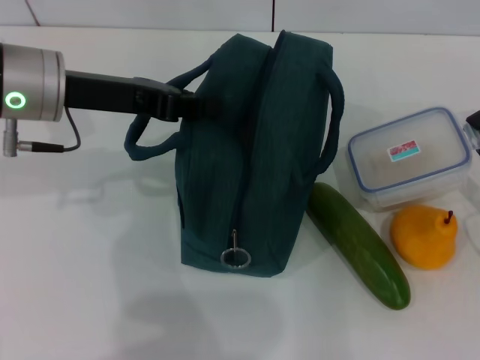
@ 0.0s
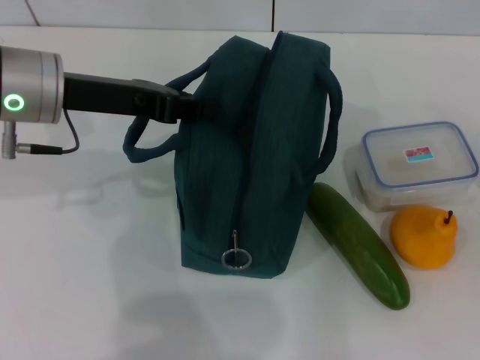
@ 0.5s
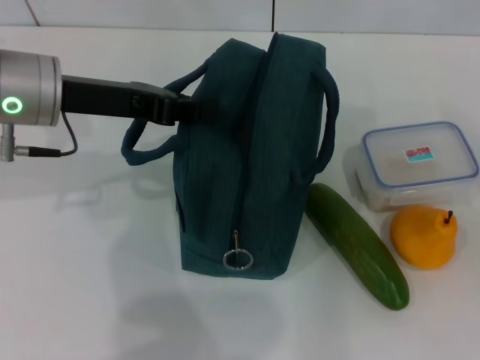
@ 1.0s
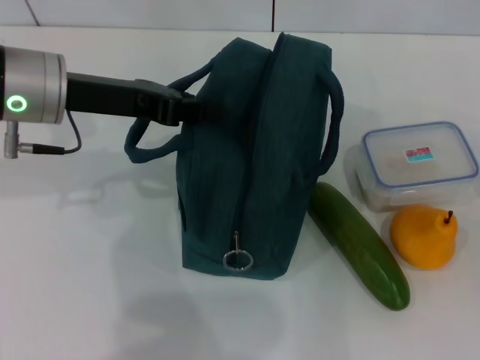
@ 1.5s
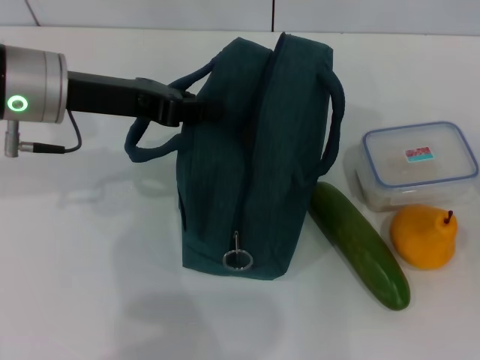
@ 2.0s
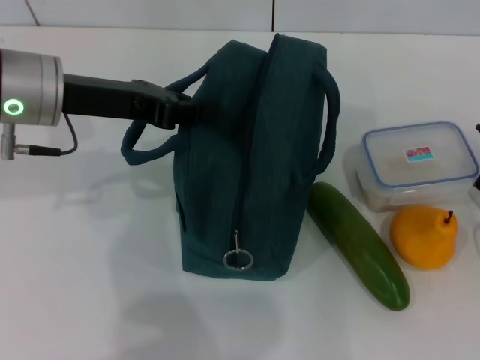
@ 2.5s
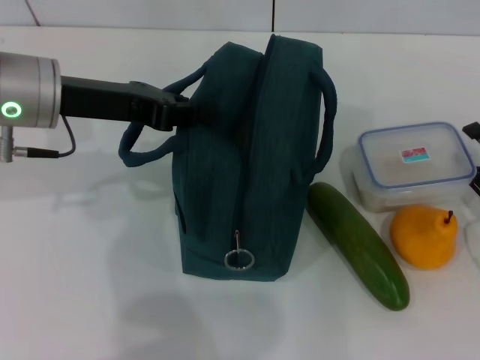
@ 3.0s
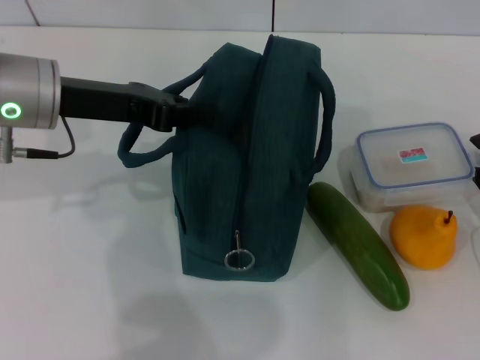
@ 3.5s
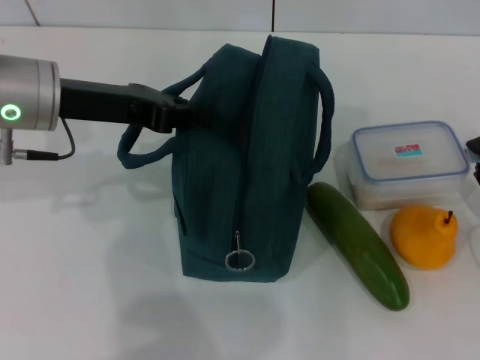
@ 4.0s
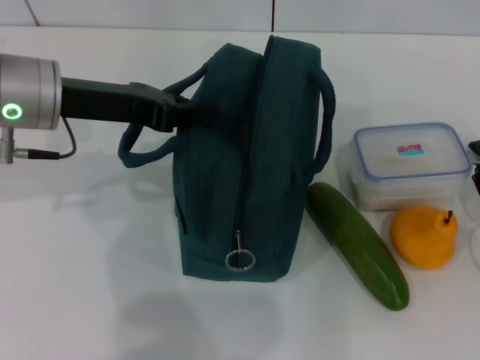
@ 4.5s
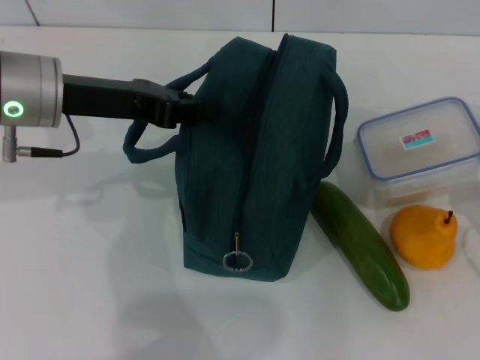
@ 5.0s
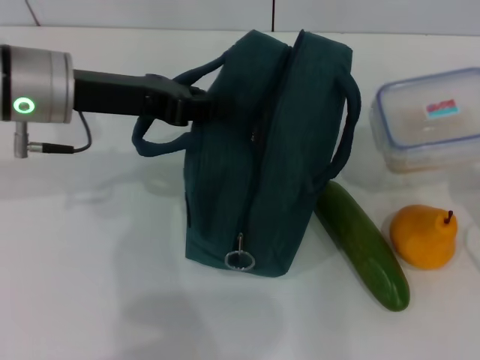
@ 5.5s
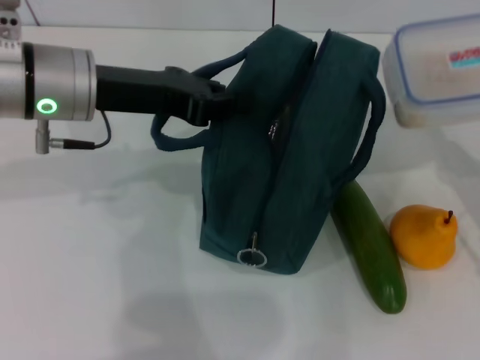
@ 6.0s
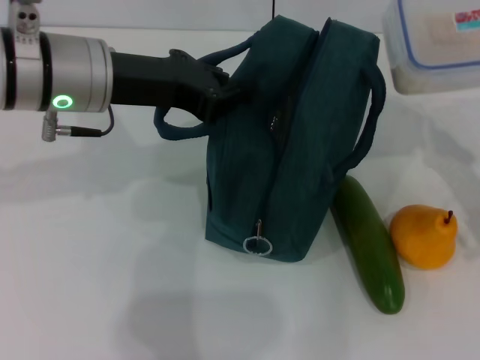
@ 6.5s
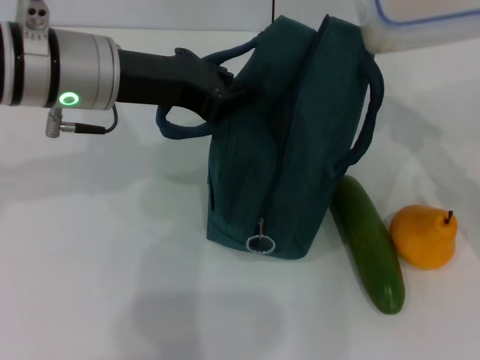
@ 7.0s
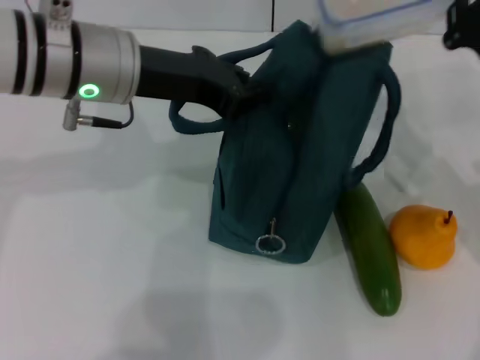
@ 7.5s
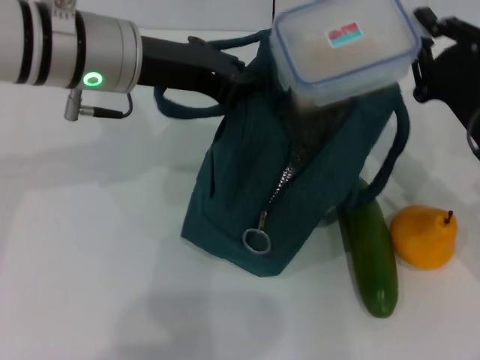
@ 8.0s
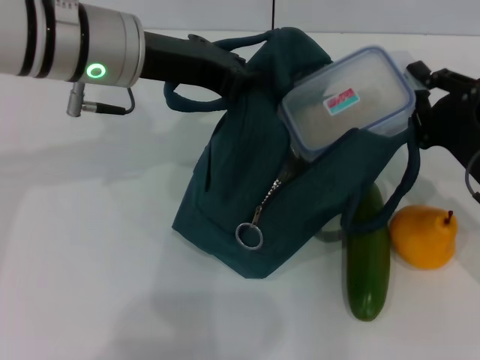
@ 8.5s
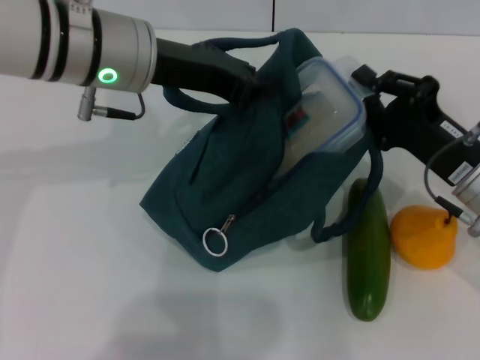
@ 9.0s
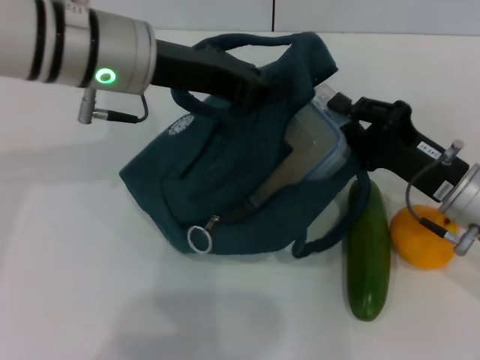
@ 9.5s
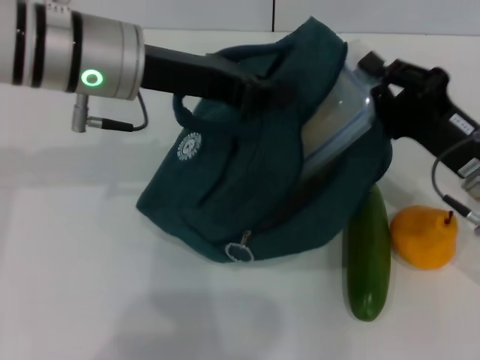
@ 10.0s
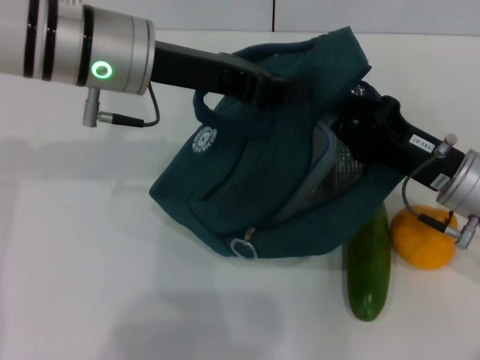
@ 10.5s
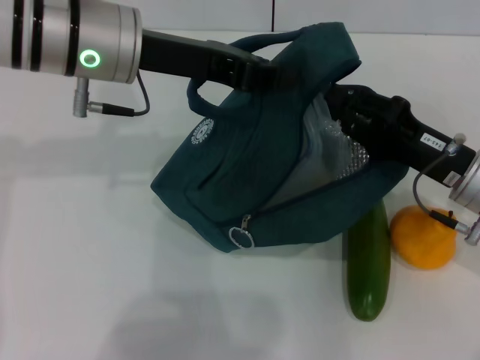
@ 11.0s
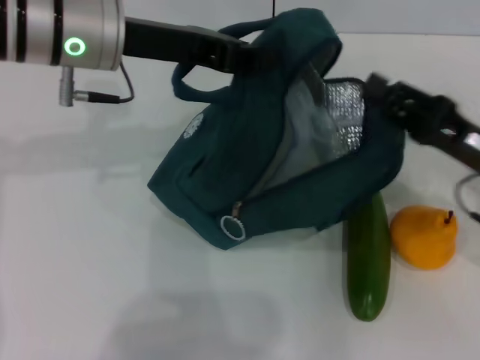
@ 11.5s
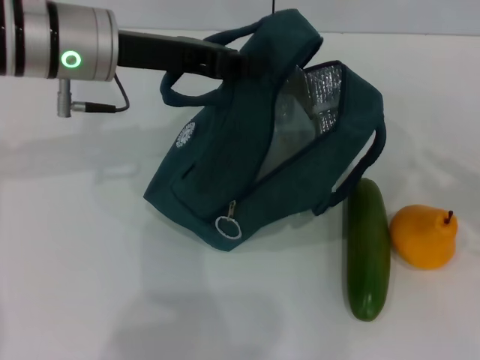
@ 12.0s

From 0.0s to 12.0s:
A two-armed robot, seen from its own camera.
Step, from 0.0s to 4.0s: Pick up the lunch box with your right hand.
Step, from 4.5s to 11.0s: Place the lunch box into the lunch bag with your right hand.
From 0.0s to 2.0s: The right gripper ends up approximately 5 cm from where it was, and opens.
From 2.0s to 4.0s: The right gripper closes.
From 4.0s to 6.0s: The right gripper is displaced upward by approximately 5 cm.
From 6.0s to 8.0s: The right gripper moves to the left and forward, some 10 cm.
From 10.0s to 12.0s: The right gripper is displaced to the right and backward by approximately 15 cm.

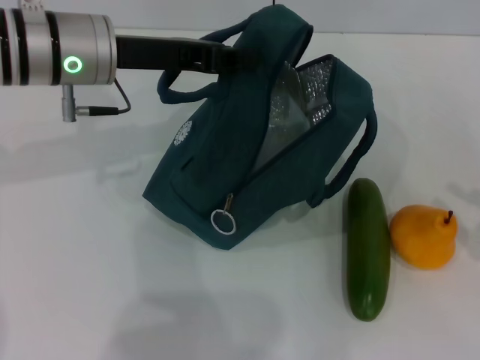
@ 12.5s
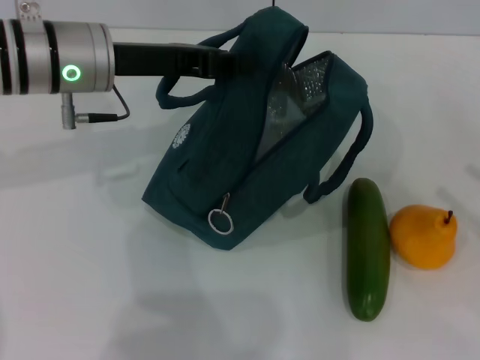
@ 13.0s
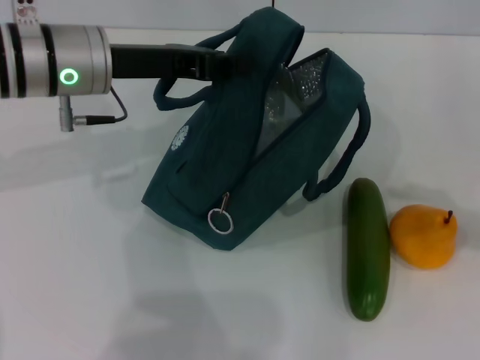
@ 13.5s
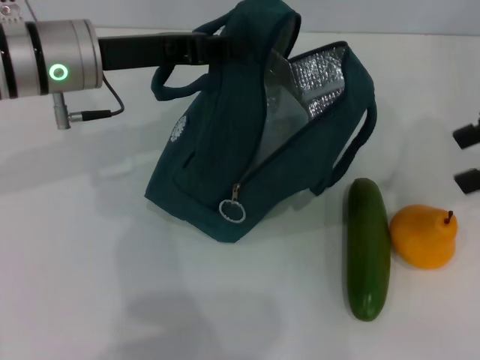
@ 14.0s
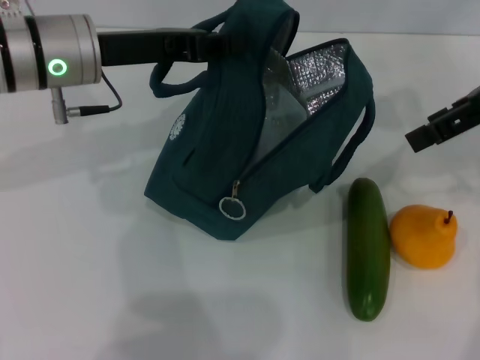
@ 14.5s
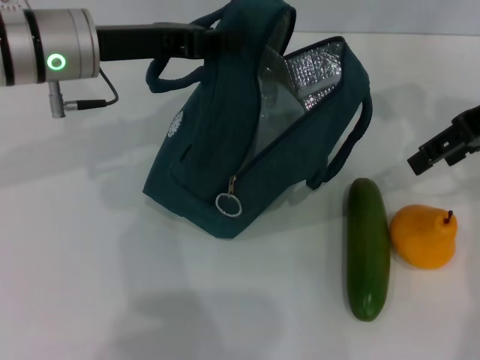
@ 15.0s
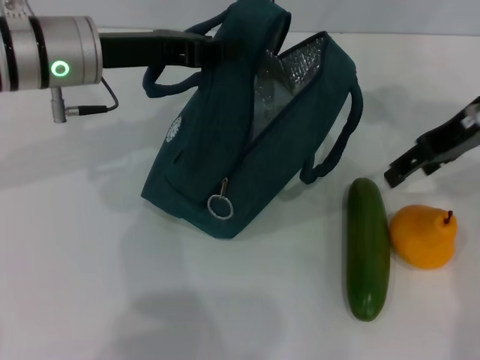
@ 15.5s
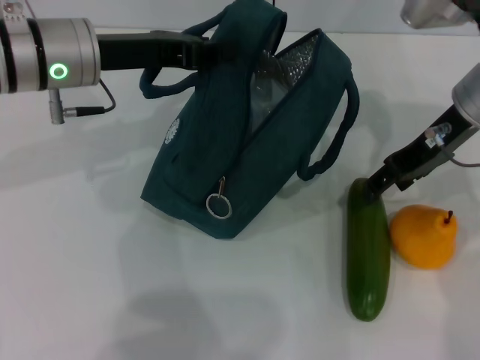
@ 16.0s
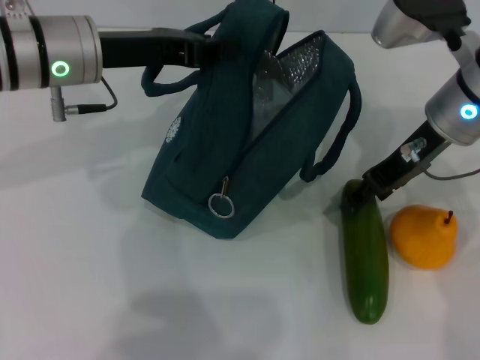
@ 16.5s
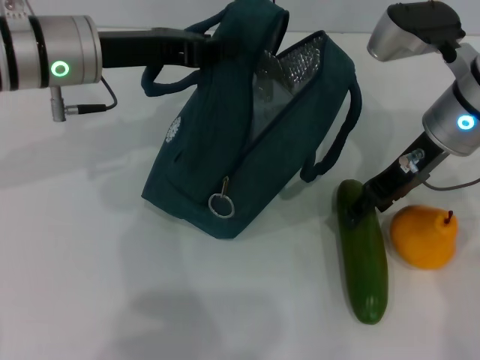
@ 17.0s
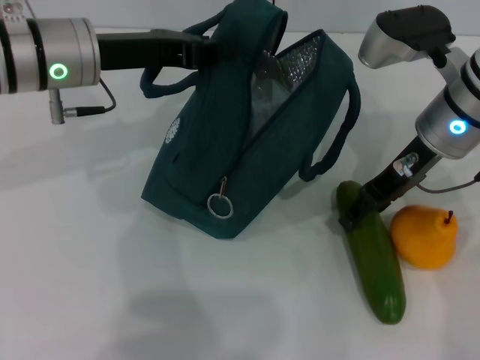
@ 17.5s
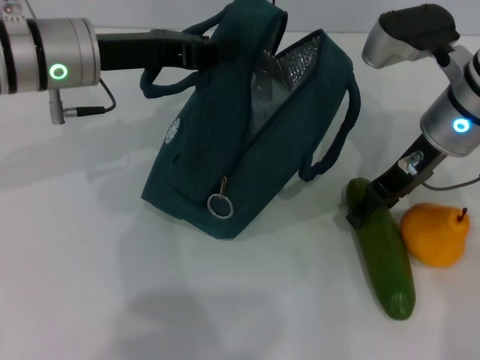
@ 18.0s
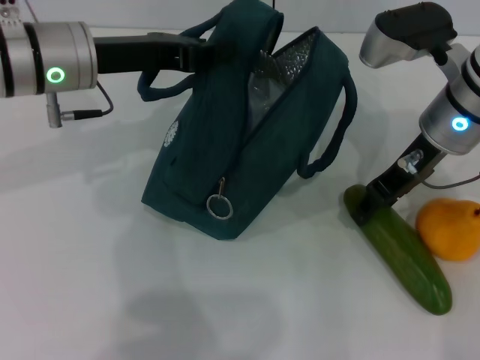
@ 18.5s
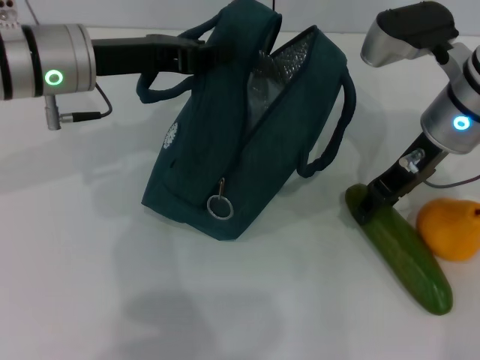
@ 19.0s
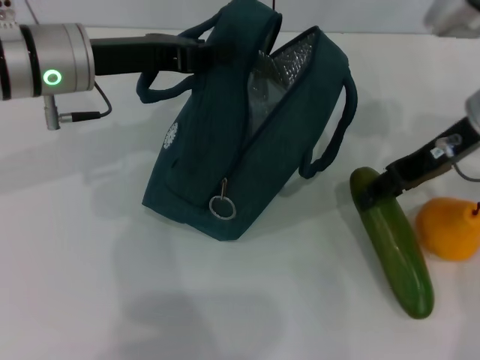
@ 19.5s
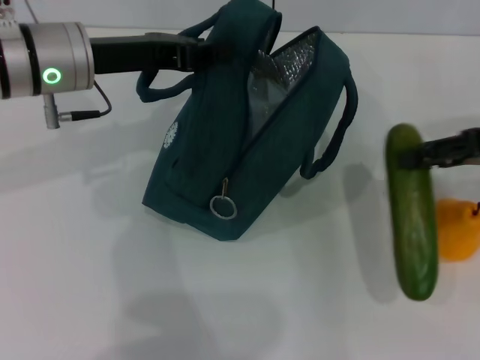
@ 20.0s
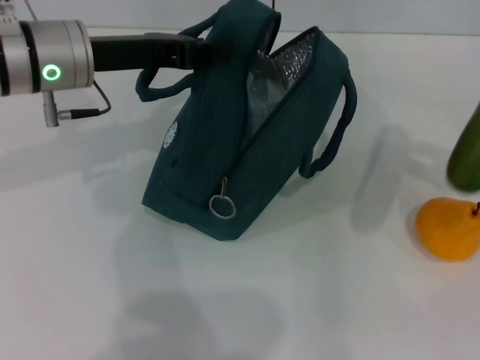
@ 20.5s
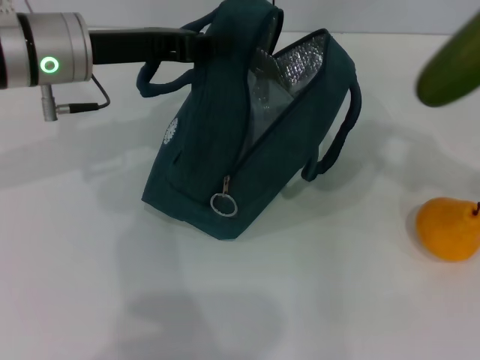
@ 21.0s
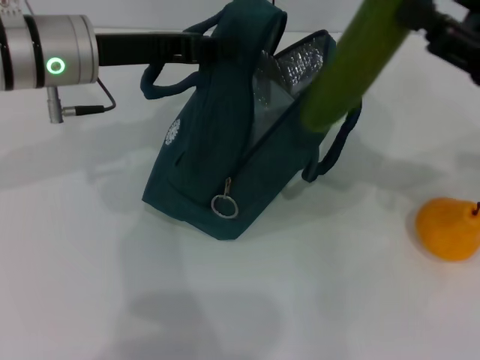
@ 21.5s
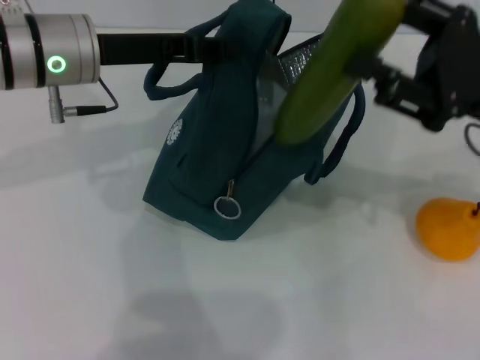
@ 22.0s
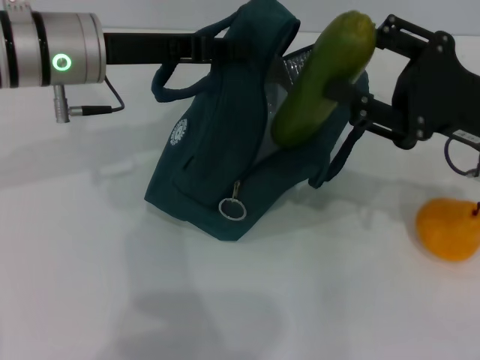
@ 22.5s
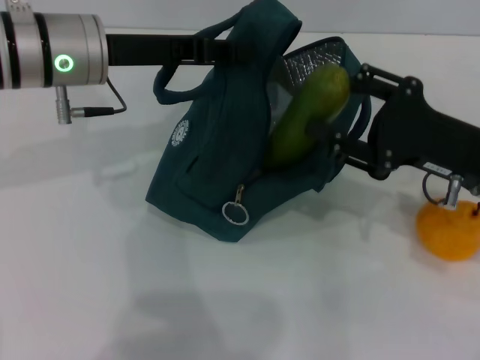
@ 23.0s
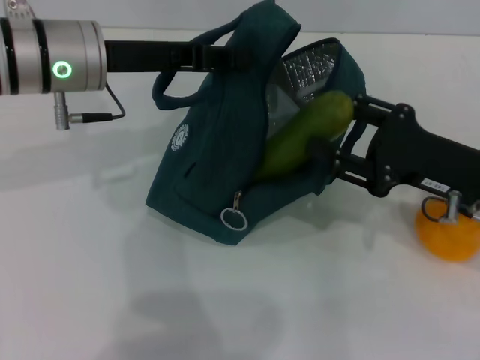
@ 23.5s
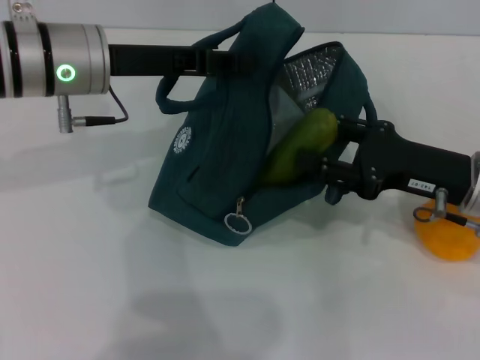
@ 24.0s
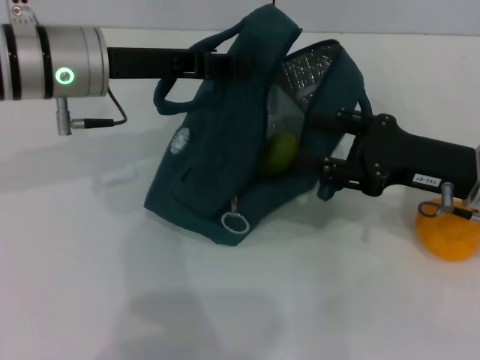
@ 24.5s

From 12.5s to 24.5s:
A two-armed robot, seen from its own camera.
Step, from 12.5s to 18.0s: Pick up the cucumber with your right hand.
From 12.5s to 14.5s: The right gripper heads upward, forward and to the left, covering some 25 cm, and opens its fingers.
From 14.5s to 16.5s: The right gripper shifts roughly 15 cm downward and to the left.
From 18.5s to 20.5s: The right gripper shifts about 25 cm to the right and backward.
From 20.5s to 22.5s: The right gripper travels to the left by some 15 cm.

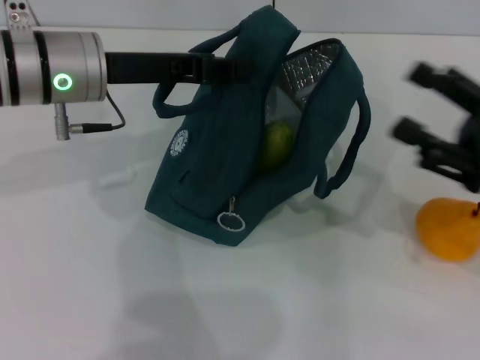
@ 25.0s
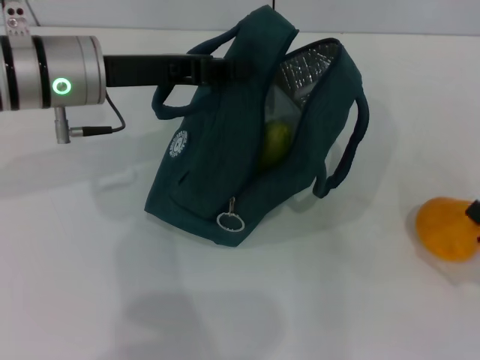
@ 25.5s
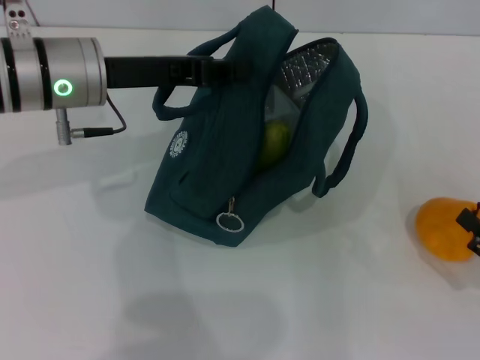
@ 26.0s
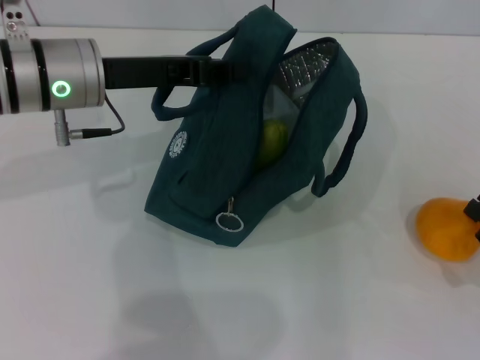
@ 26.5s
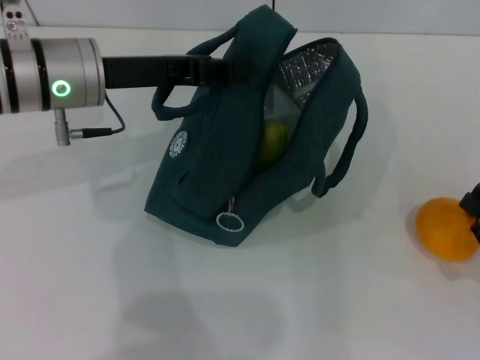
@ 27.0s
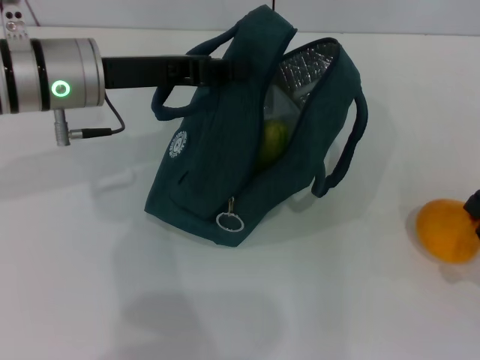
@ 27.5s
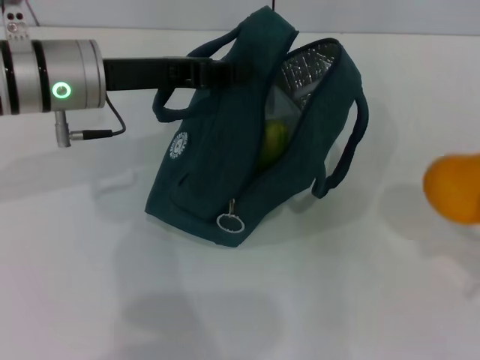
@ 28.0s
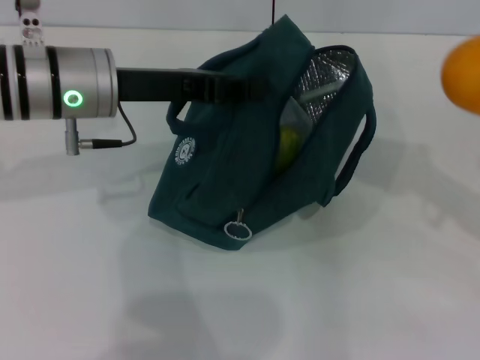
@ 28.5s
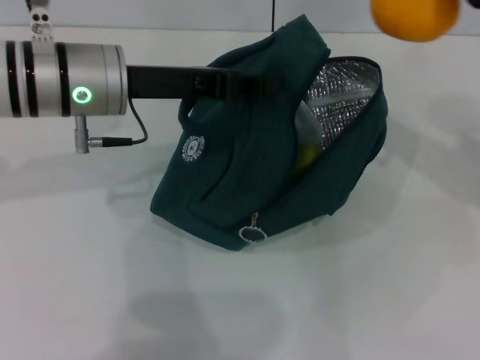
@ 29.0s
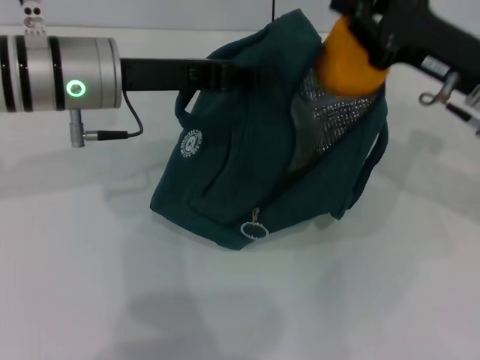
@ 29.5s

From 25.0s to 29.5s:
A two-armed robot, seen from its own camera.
Step, from 25.0s to 27.0s: Grab the pear with your right hand.
From 25.0s to 27.0s: The right gripper goes about 15 cm downward, backward and to the right, and closes its fingers.
From 27.0s to 29.5s: The right gripper heads forward, upward and to the left, covering roughly 25 cm.
